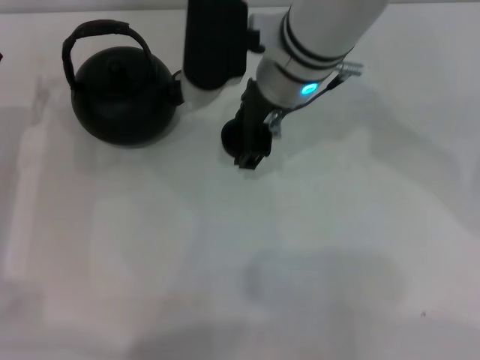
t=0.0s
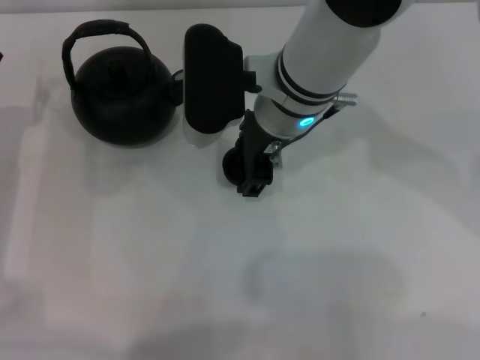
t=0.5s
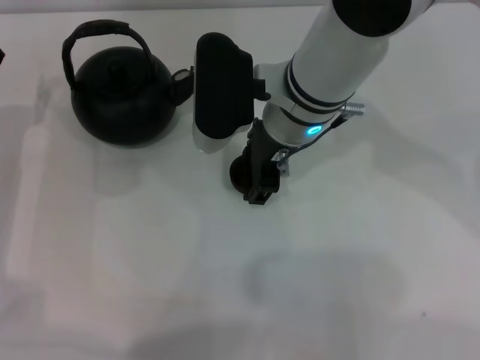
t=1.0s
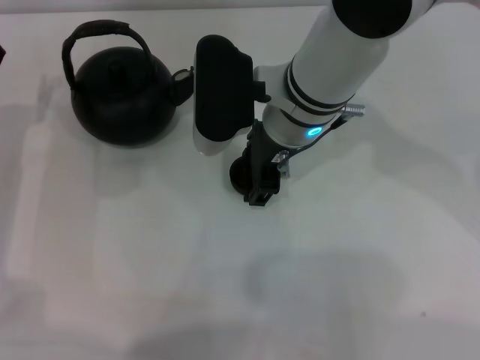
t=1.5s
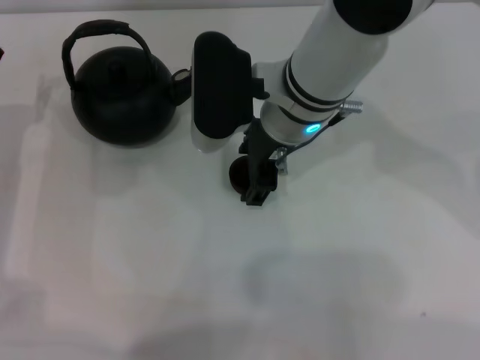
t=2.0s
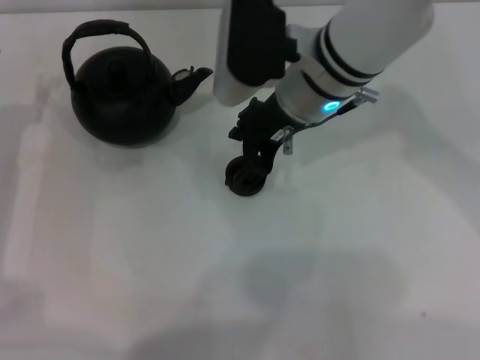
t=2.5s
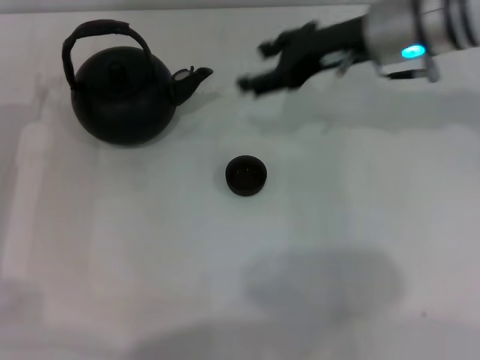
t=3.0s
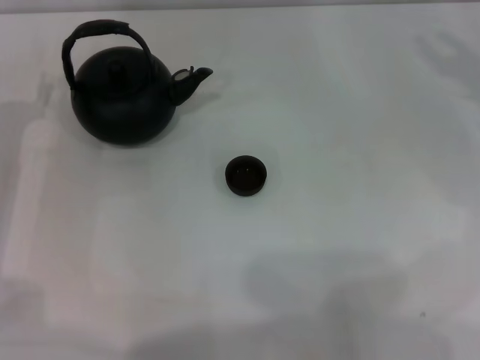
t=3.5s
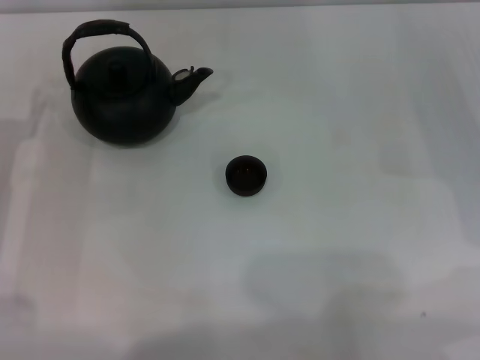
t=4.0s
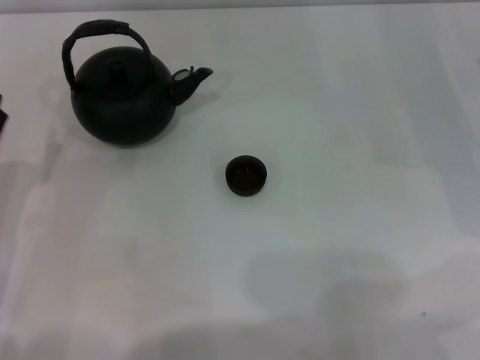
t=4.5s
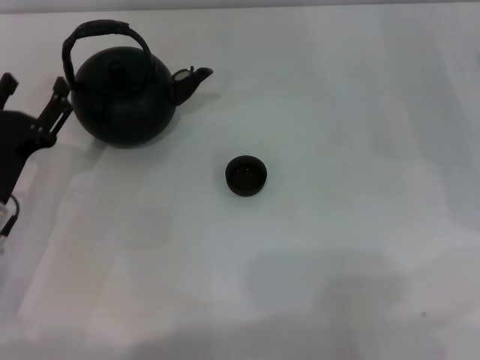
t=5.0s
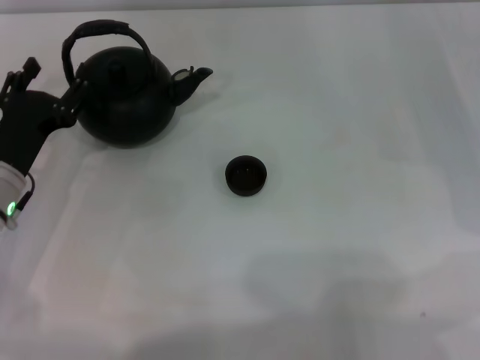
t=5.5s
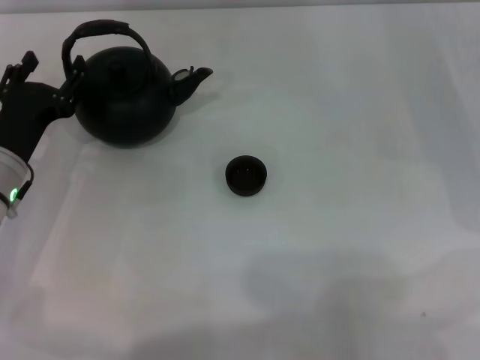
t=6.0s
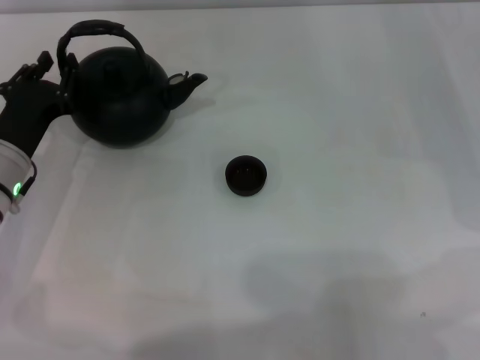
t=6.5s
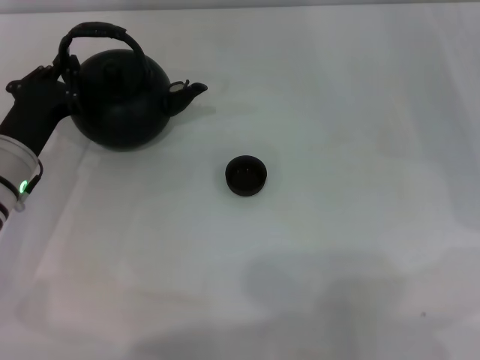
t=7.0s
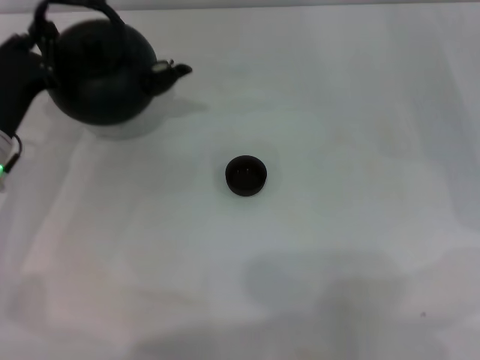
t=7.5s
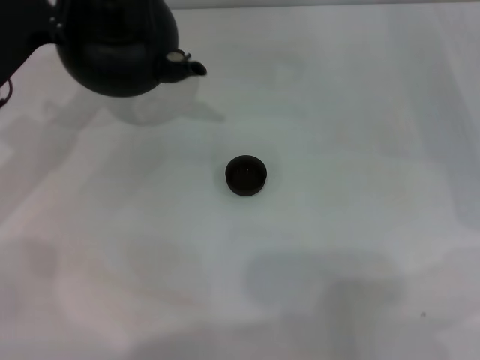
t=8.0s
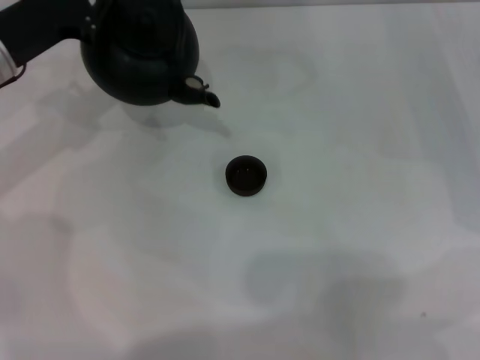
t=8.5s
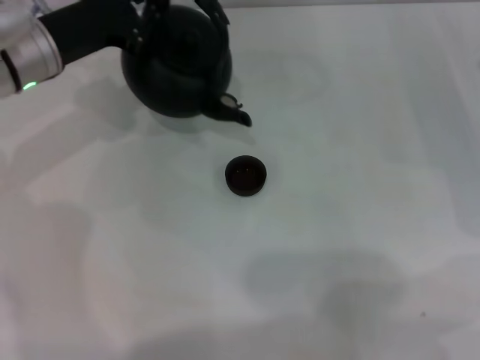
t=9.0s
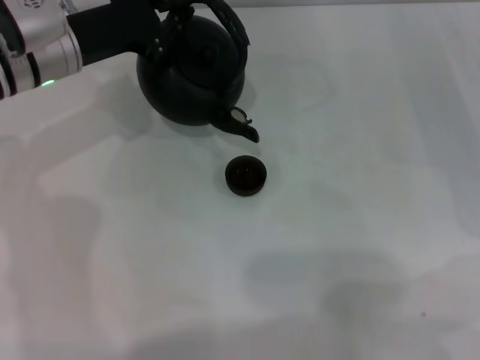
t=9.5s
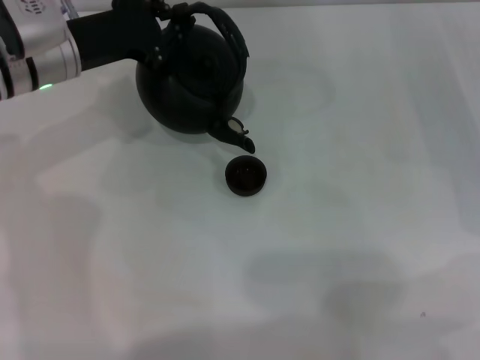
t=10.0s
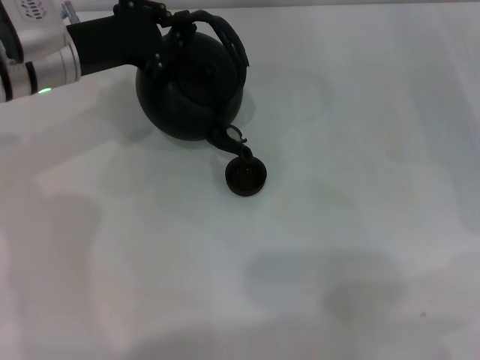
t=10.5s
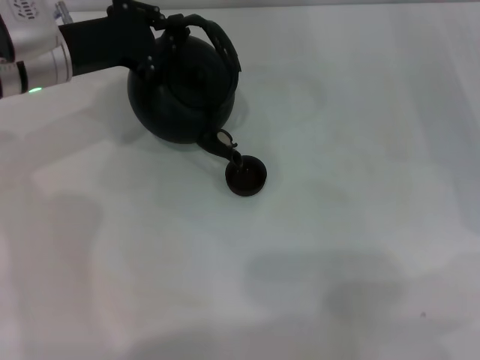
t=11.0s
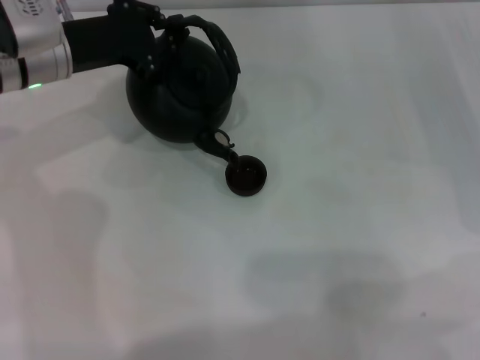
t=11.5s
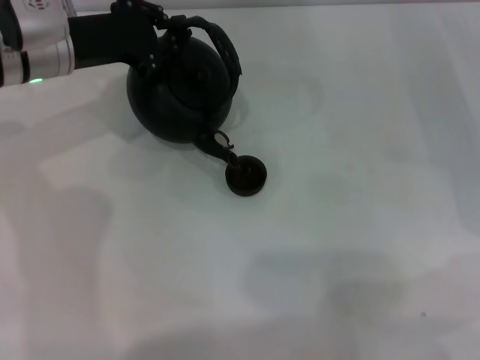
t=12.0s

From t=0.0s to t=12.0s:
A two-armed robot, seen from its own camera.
Task of the whole recording: Grasp the handle of the teapot with one hand and pour tea into the teacup.
Step, from t=0.0s to t=2.5s: Place the teacup in the center of view with the right gripper.
Step, from t=3.0s to t=9.0s: Pick up the teapot with the left gripper.
From t=0.0s to t=2.0s: The grippers make only small movements.
From t=2.0s to t=4.0s: The right gripper moves to the right, roughly 30 cm.
From t=4.0s to t=6.0s: The left gripper shifts about 5 cm to the right, and goes backward and returns, some 5 cm each way.
From t=6.0s to t=8.0s: The left gripper travels upward and forward by approximately 10 cm, and closes.
From t=8.0s to t=10.0s: The left gripper heads to the right and forward, covering approximately 10 cm.
From t=10.0s to t=12.0s: The grippers make only small movements.

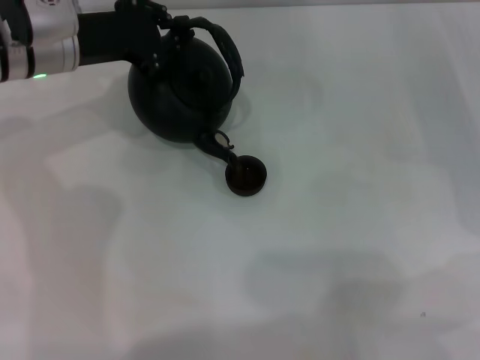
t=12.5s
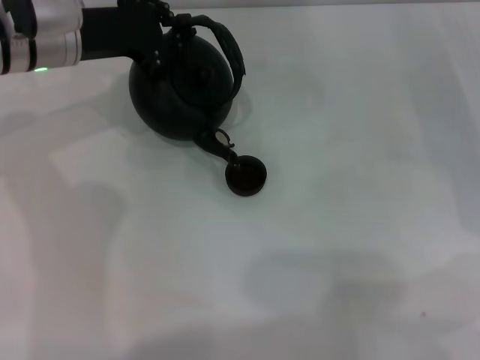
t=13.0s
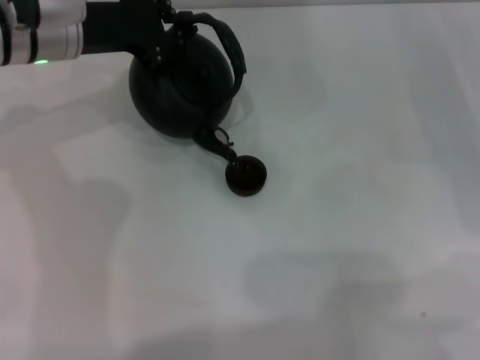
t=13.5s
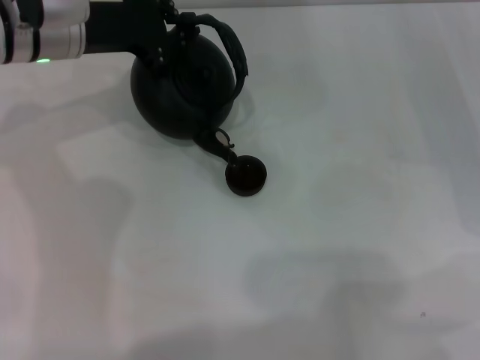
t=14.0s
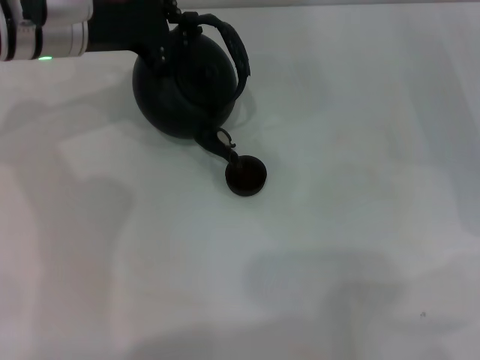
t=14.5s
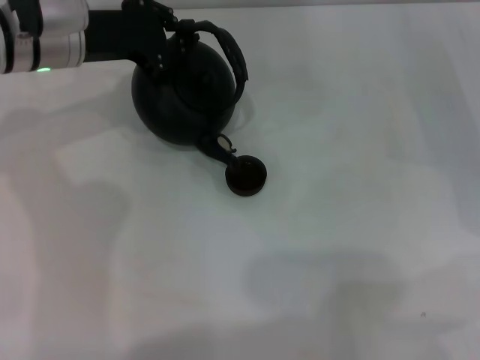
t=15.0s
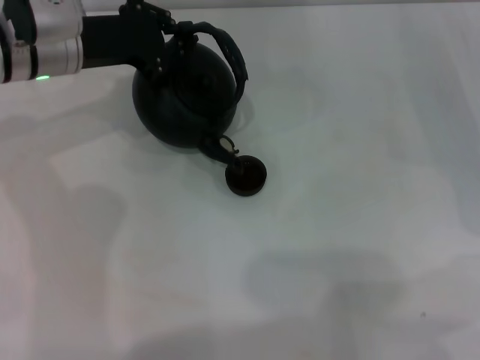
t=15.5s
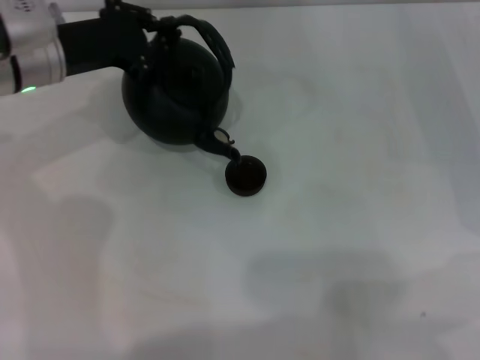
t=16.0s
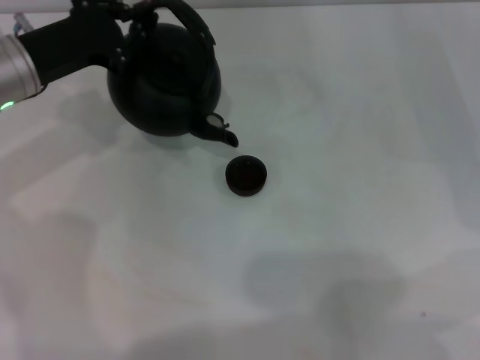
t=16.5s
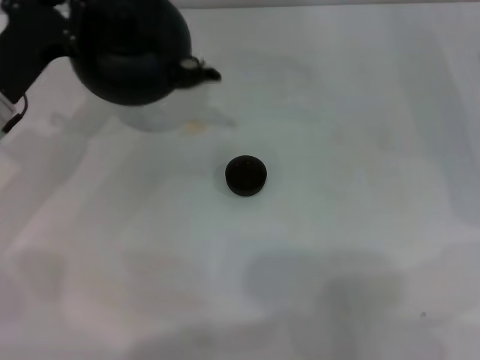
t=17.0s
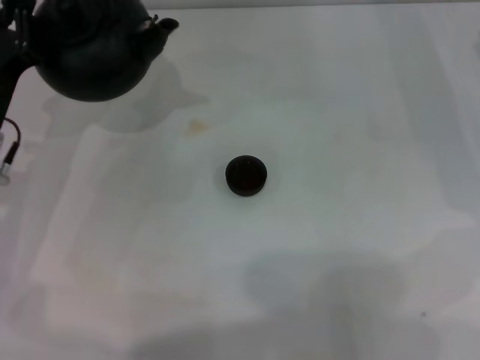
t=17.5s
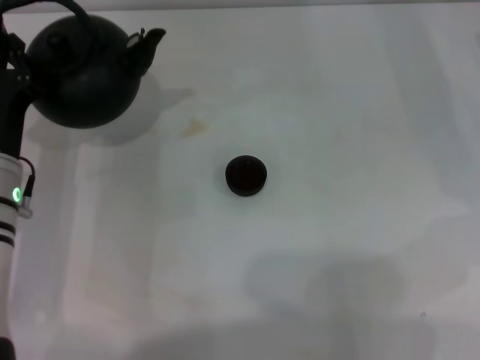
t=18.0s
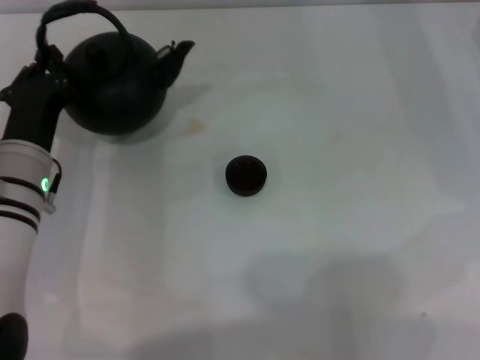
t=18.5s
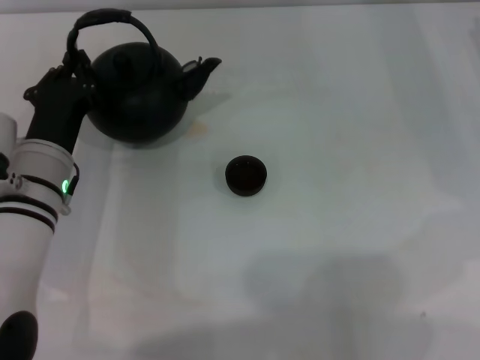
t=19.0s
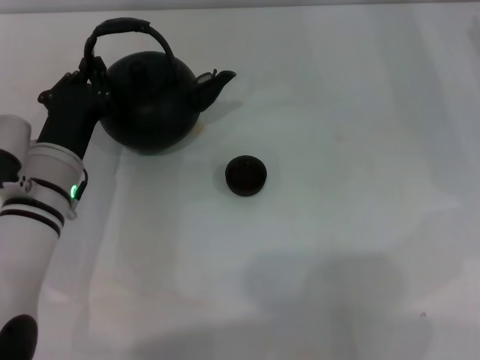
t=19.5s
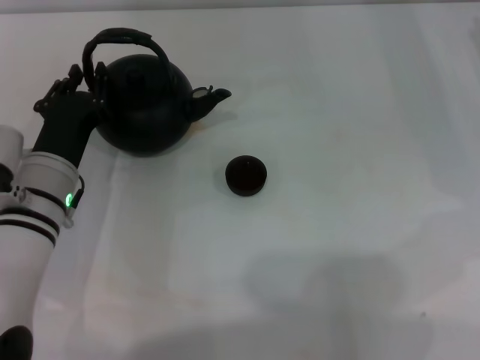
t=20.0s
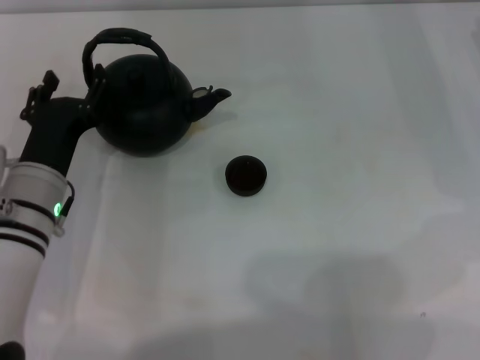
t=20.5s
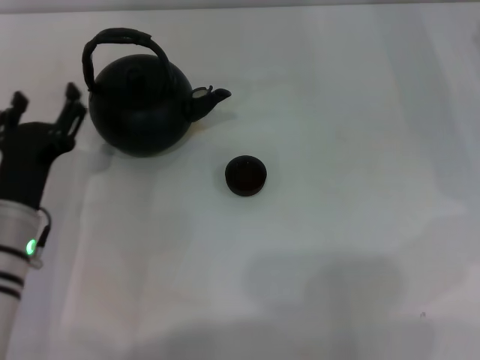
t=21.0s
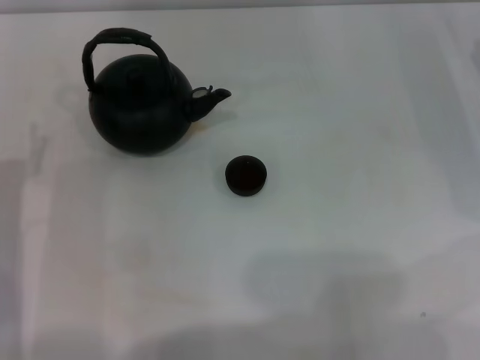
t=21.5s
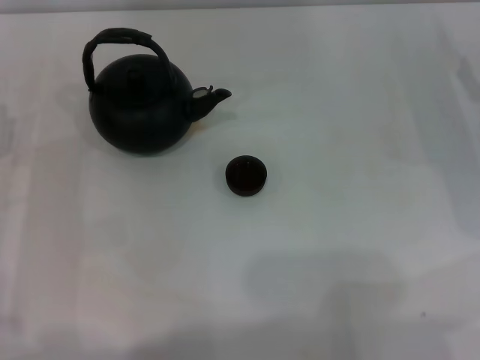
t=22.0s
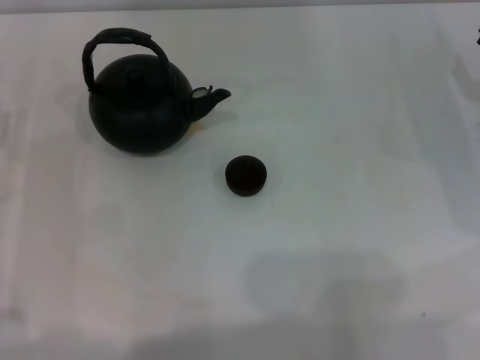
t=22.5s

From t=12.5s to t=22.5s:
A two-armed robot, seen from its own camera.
Task of the whole recording: Grasp the handle of the teapot with one hand and pour tea into the teacup.
Step, from t=12.5s to t=16.5s: Pour tea into the teacup with the left gripper.
Step, from t=17.0s to t=20.5s: Put down the teapot with the left gripper.
From t=12.5s to t=14.5s: The grippers stay close to where they were, moving slightly.
From t=14.5s to t=16.5s: The left gripper changes place by approximately 5 cm.
From t=16.5s to t=18.5s: The left gripper travels backward and downward by roughly 10 cm.
From t=18.5s to t=20.5s: The left gripper opens.
From t=20.5s to t=22.5s: The left gripper travels to the left by some 10 cm, and opens.

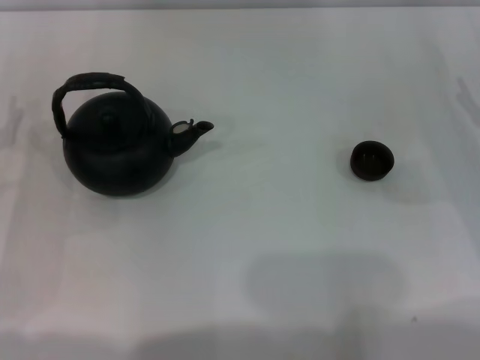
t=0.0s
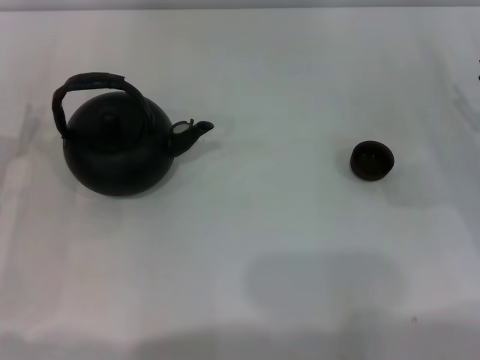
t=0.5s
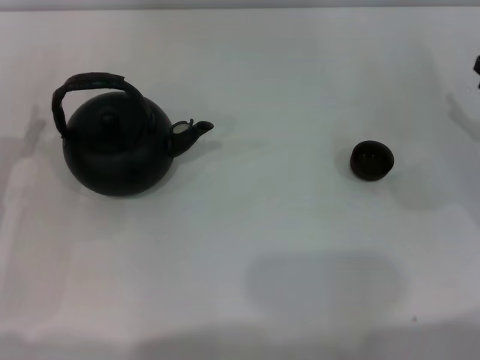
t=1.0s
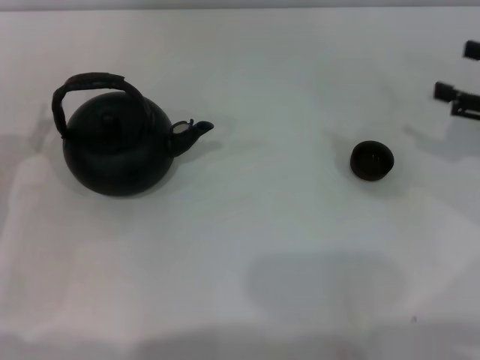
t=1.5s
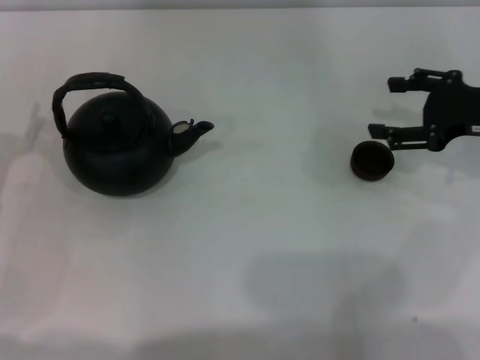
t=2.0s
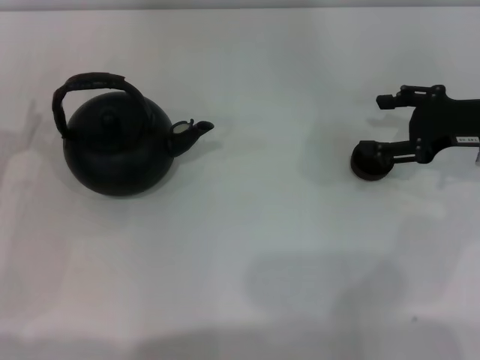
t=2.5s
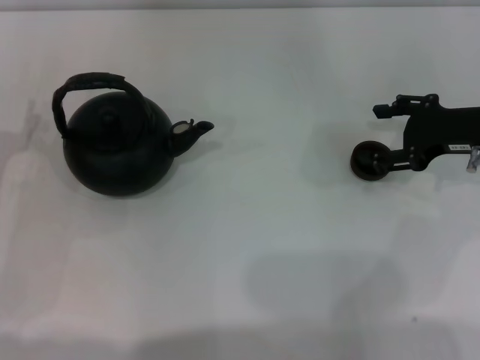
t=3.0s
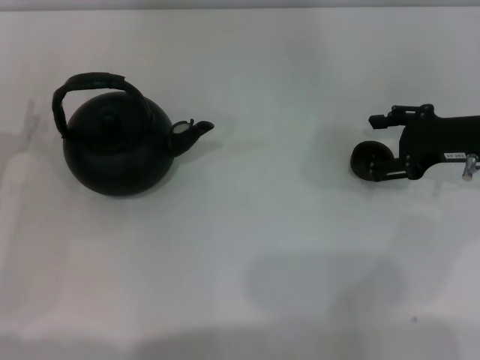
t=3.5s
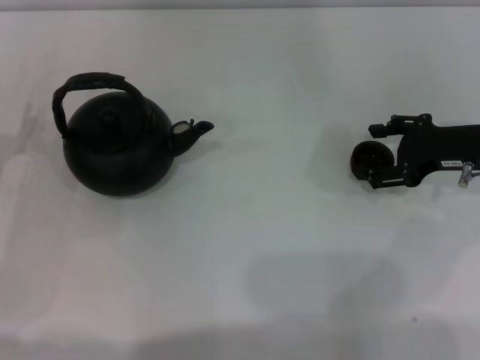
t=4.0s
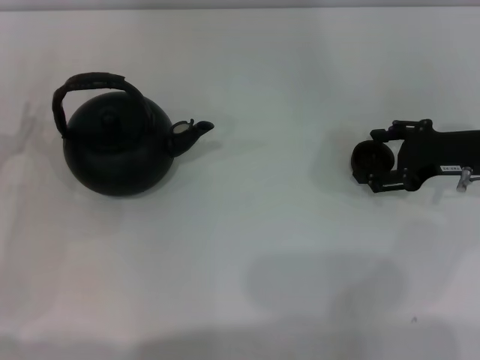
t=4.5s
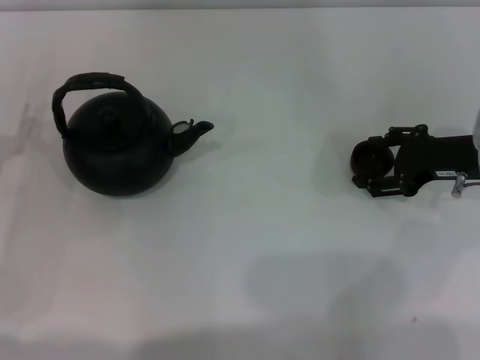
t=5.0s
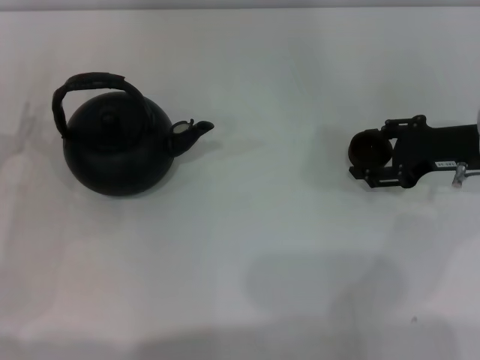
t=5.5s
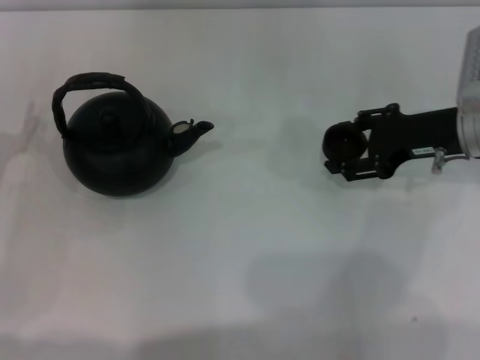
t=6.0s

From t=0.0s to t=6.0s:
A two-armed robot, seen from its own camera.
Task of the whole recording: Grasp the handle of the teapot with one hand and pour tea into the teacup.
From t=0.0s to t=2.0s: The right gripper travels upward by some 5 cm.
From t=2.0s to t=4.0s: The grippers make only small movements.
From t=4.0s to t=6.0s: The right gripper closes up.
